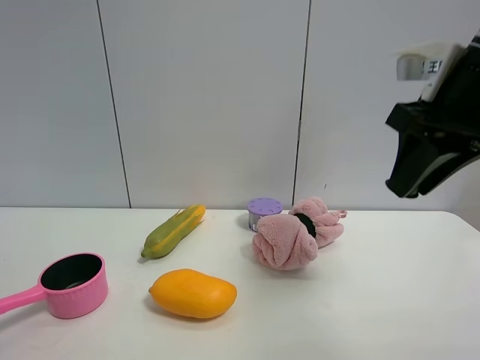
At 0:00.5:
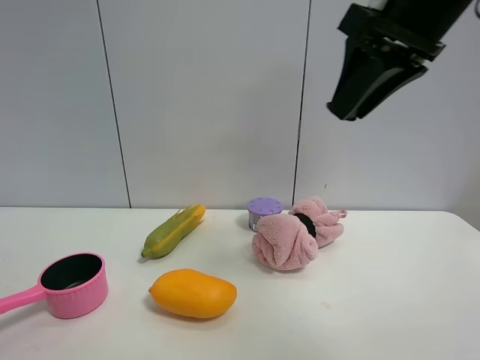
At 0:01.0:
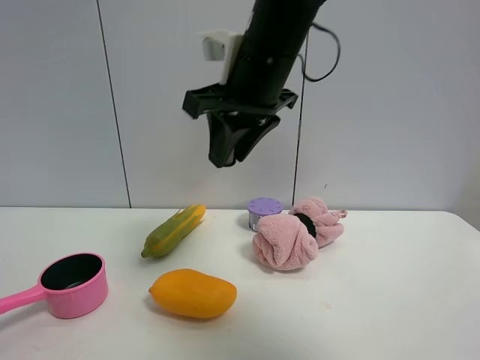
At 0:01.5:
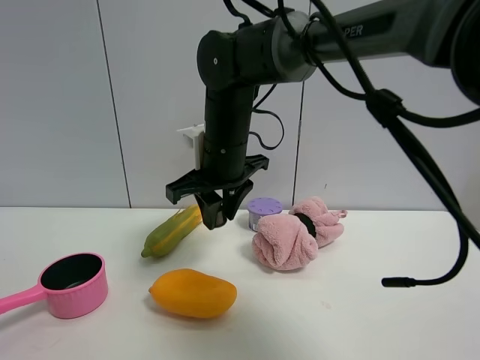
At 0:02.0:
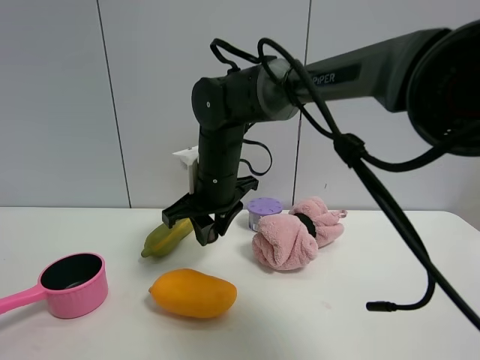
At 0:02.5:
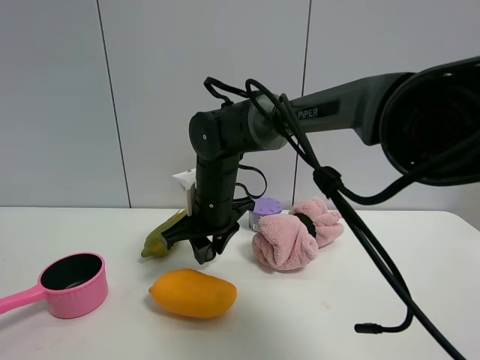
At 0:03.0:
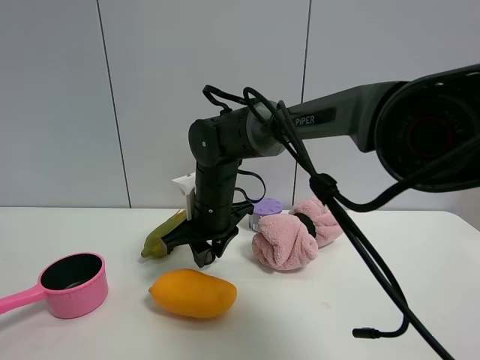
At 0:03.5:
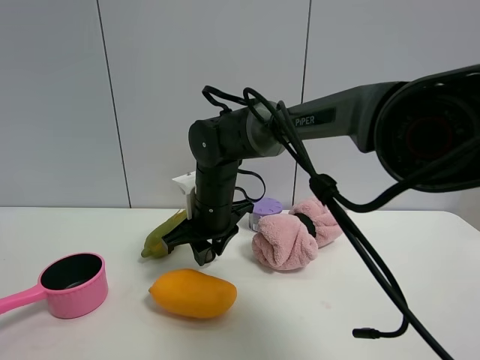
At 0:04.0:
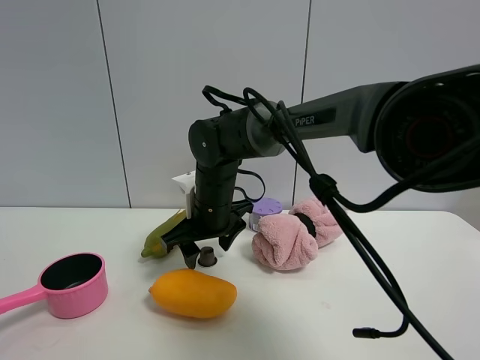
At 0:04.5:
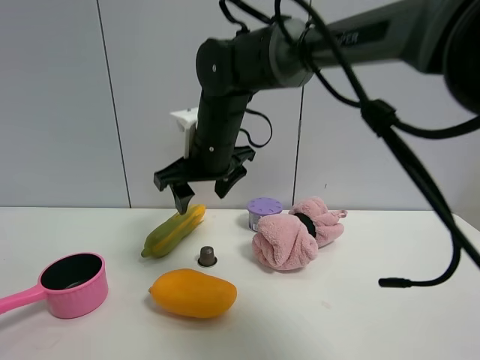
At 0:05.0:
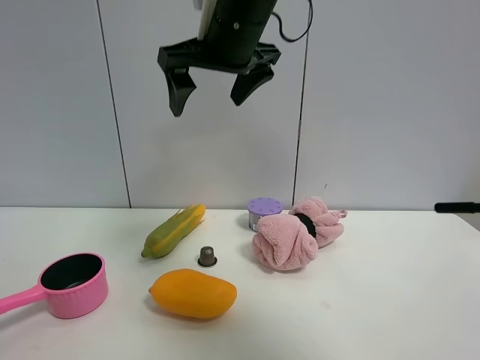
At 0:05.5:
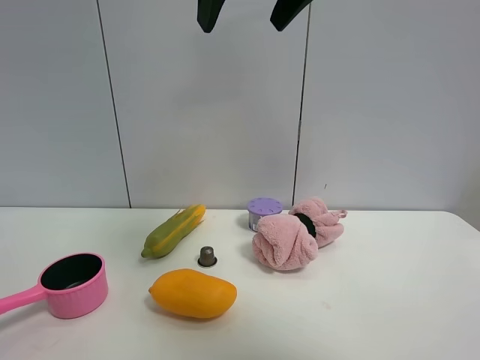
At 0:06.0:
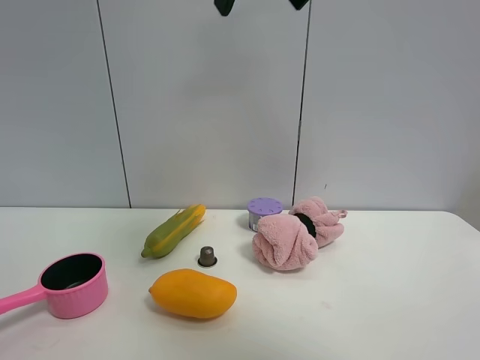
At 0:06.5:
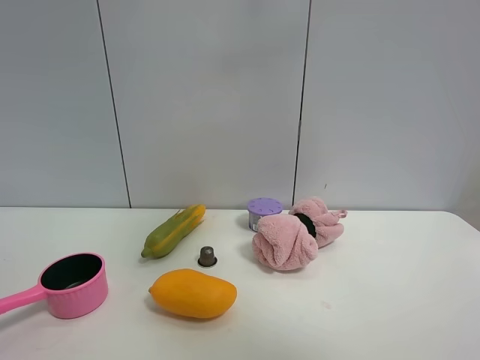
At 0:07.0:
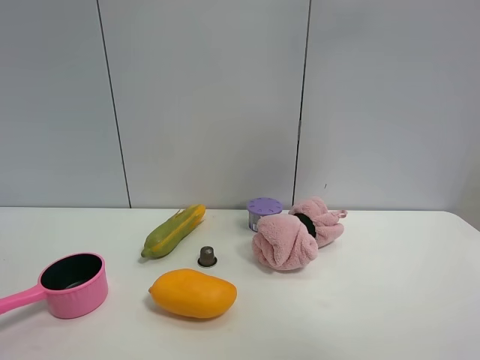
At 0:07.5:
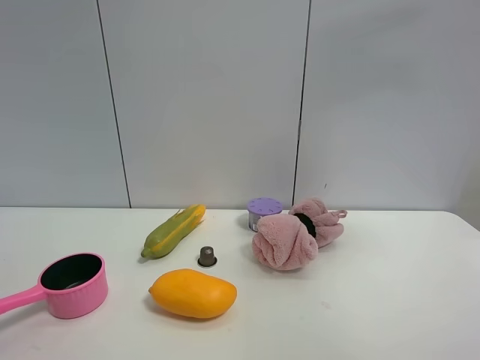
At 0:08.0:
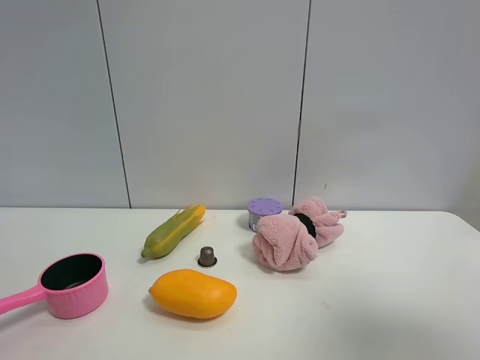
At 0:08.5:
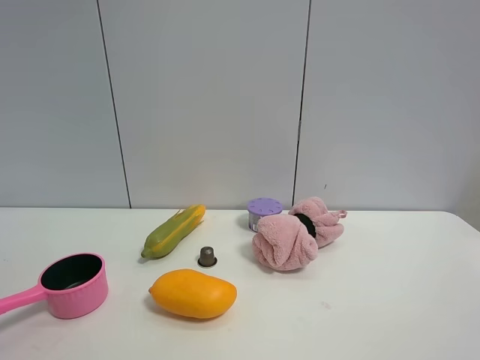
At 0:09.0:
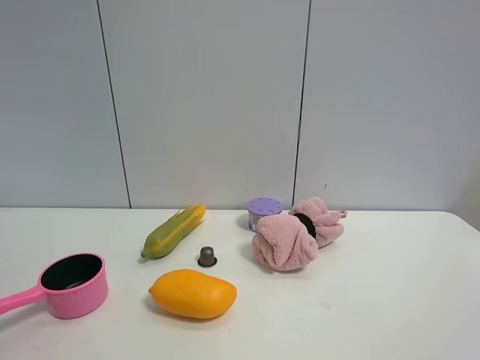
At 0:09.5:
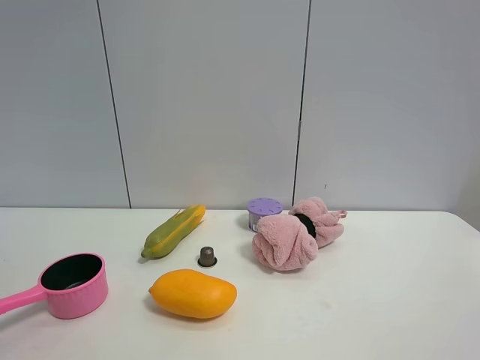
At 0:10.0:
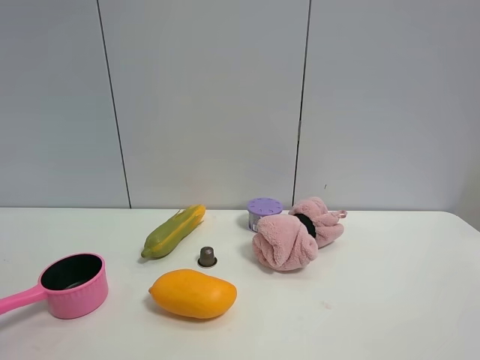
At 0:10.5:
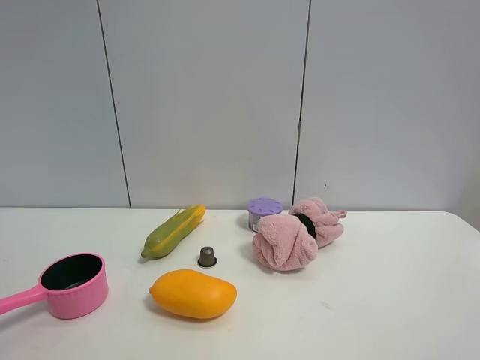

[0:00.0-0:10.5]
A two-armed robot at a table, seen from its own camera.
Task of the whole recording: the gripper move the object.
Step, 0:00.0 to 0:04.0: Place the coffee capsule on the table with the right gripper.
0:00.0 to 0:02.0: The right gripper goes about 30 cm to the left, downward and forward.
0:02.0 to 0:04.0: The right gripper opens up.
0:04.0 to 0:06.5: The right gripper travels upward and to the right by roughly 40 cm, and opens.
0:06.5 to 0:08.5: The right gripper is displaced backward, downward and to the right by roughly 40 cm.

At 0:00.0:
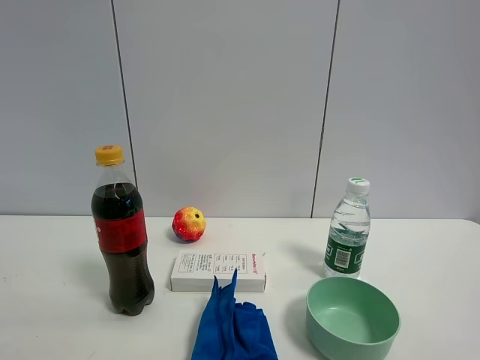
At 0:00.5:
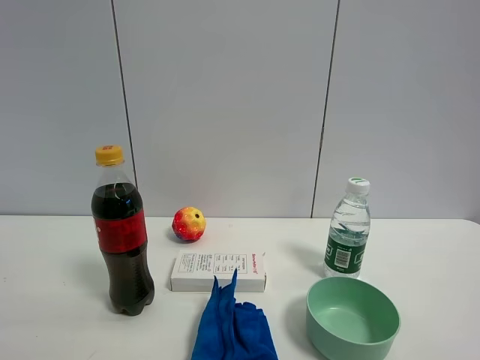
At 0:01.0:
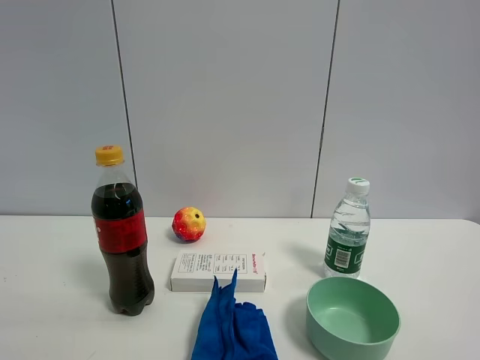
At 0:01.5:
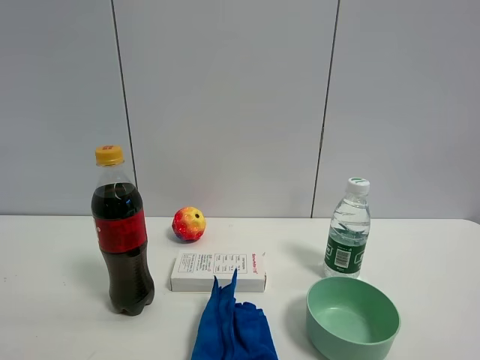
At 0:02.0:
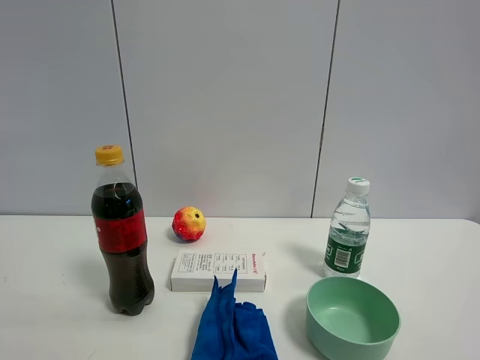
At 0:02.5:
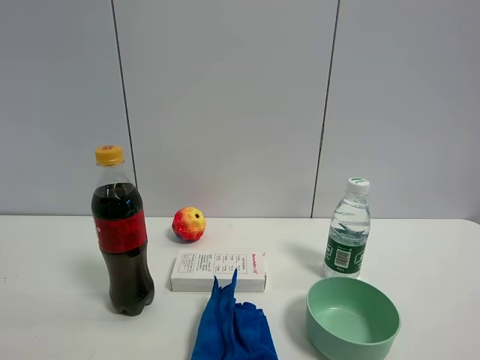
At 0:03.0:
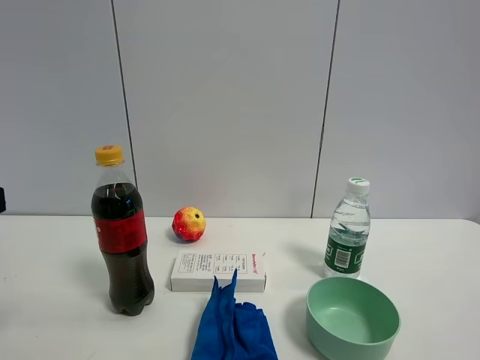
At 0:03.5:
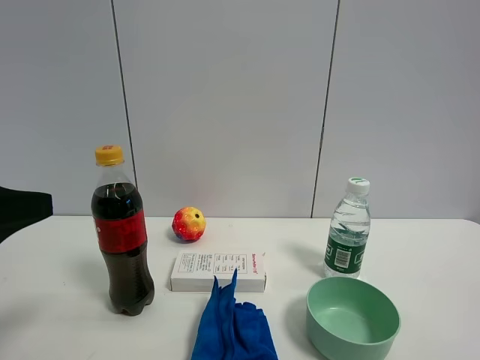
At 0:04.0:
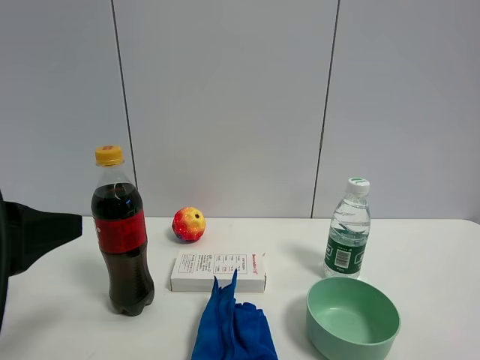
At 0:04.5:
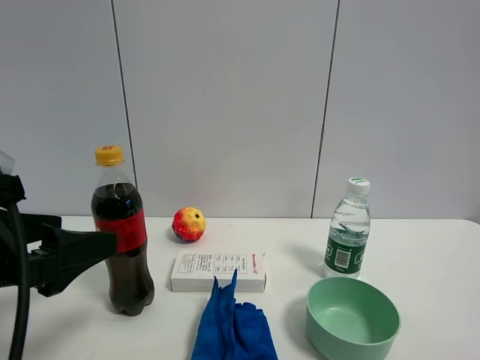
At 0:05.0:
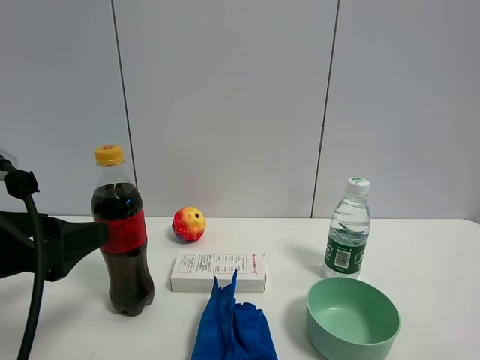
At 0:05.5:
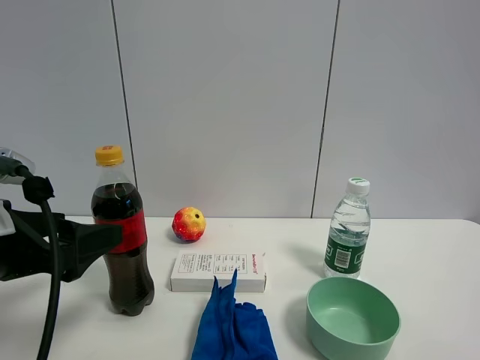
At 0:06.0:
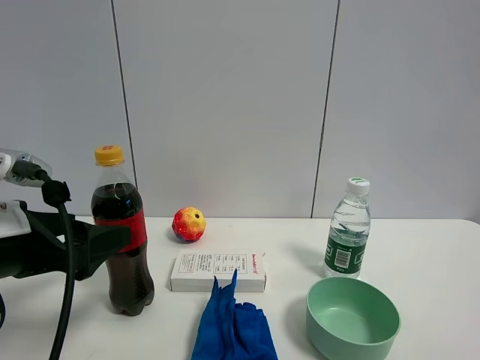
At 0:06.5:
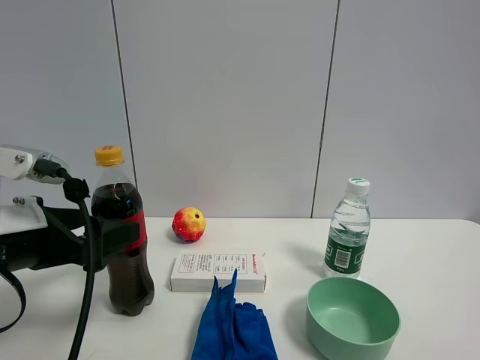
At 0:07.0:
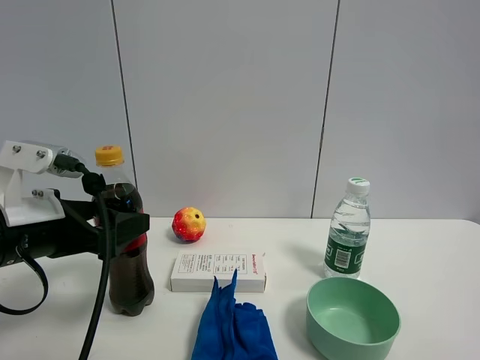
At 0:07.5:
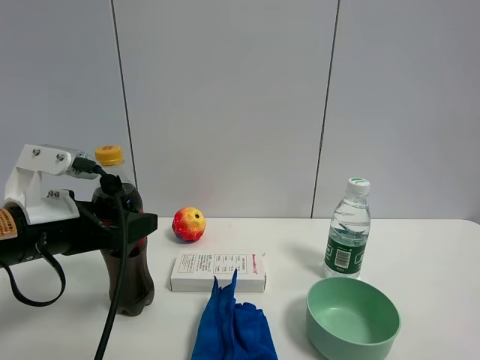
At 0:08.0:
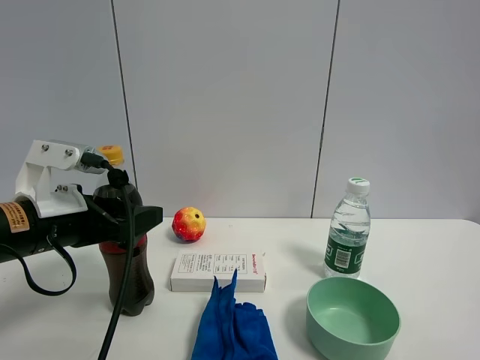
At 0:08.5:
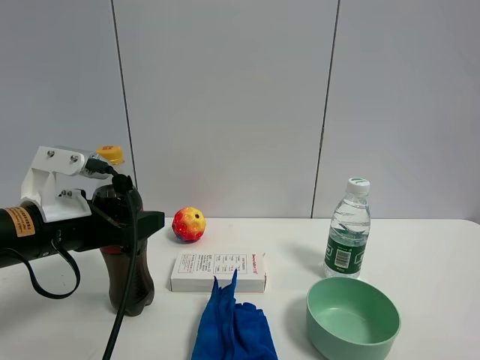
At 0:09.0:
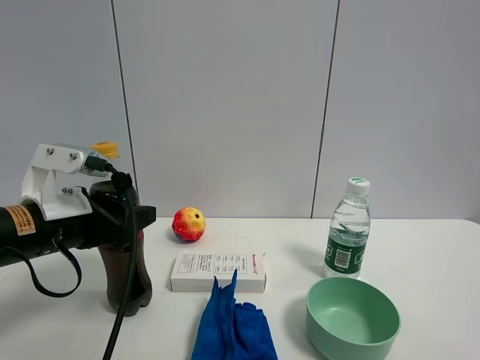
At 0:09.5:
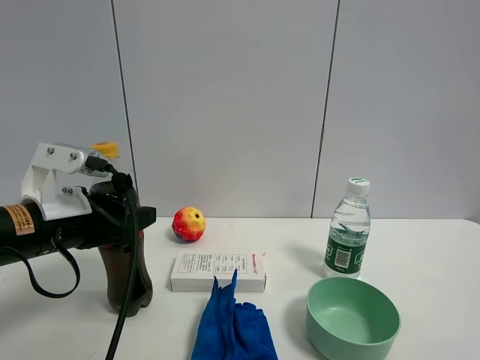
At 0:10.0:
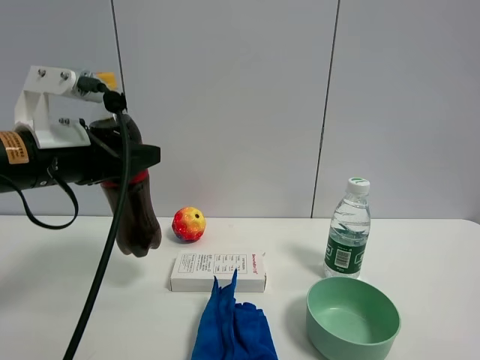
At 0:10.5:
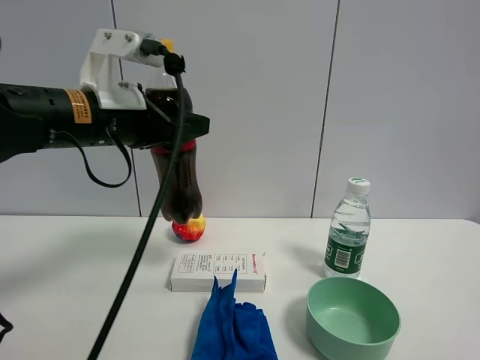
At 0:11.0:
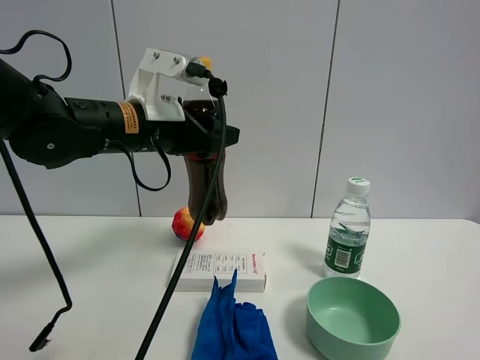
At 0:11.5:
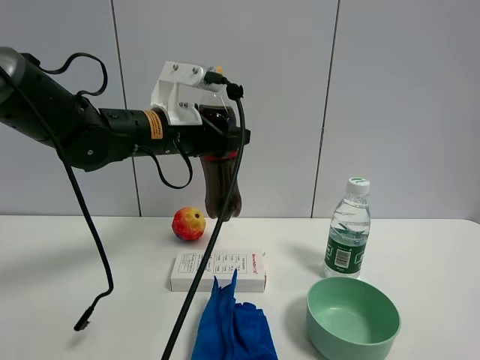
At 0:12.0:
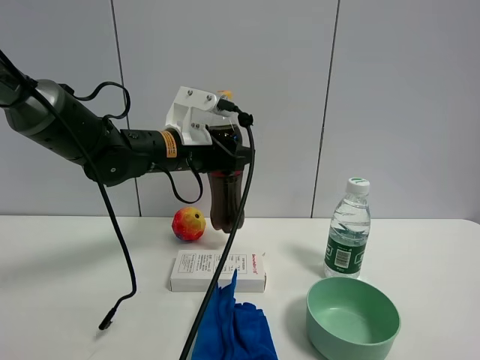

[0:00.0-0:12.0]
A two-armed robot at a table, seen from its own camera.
Task of the whole recording: the gripper move the object.
Step, 0:00.0 to 0:09.0: Grasp the coke with the left gripper.
0:02.0 to 0:04.0: The left gripper shifts roughly 15 cm downward, forward and to the right.
0:04.0 to 0:06.0: The left gripper moves some 5 cm.
0:06.0 to 0:08.0: The left gripper moves forward, about 5 cm.
0:08.0 to 0:10.0: The left gripper travels upward by about 5 cm, and closes up.
0:10.0 to 0:12.0: The left gripper goes some 15 cm forward and to the right.

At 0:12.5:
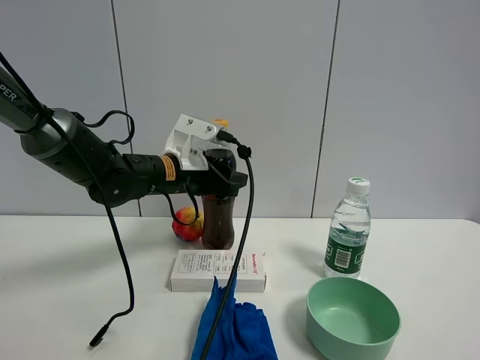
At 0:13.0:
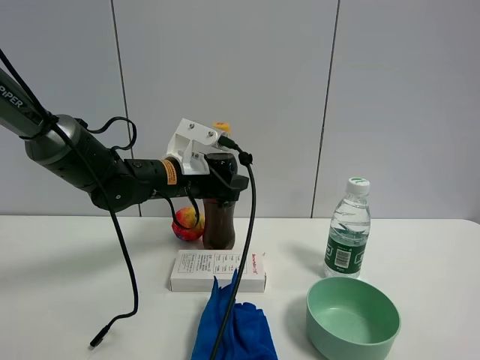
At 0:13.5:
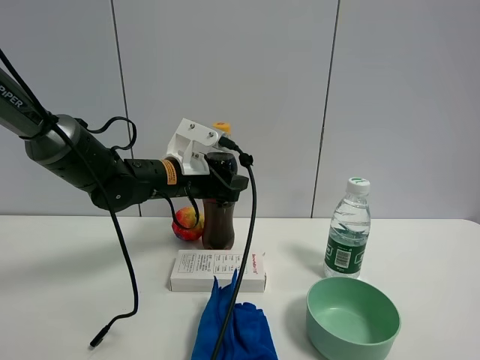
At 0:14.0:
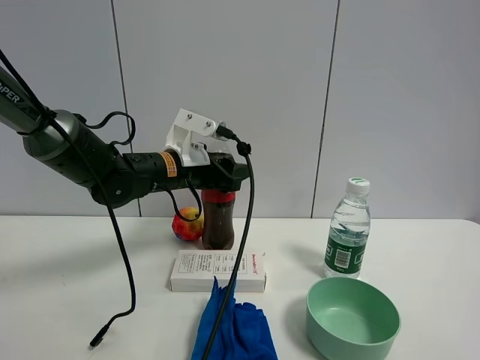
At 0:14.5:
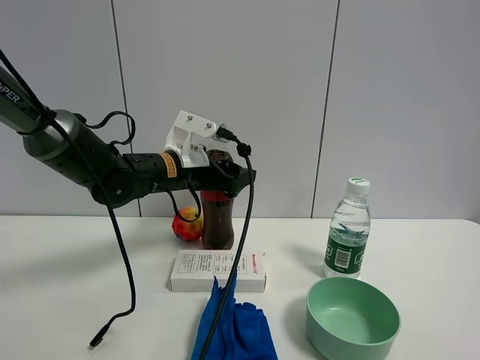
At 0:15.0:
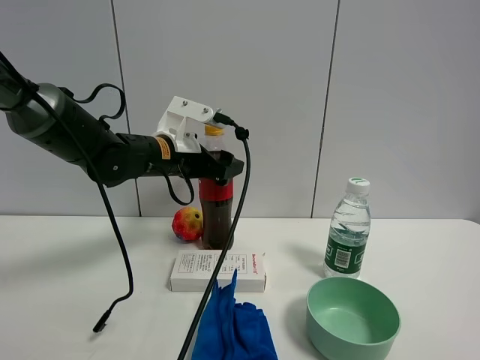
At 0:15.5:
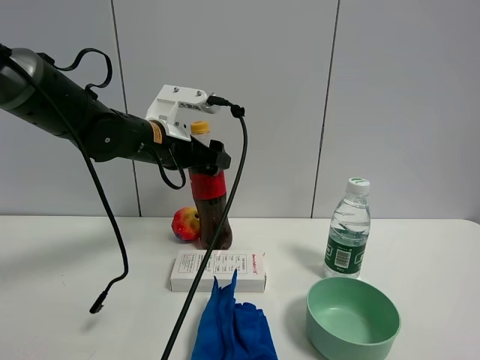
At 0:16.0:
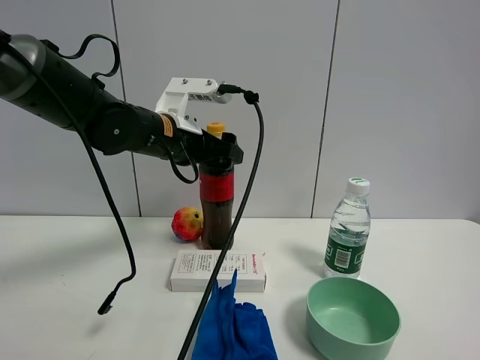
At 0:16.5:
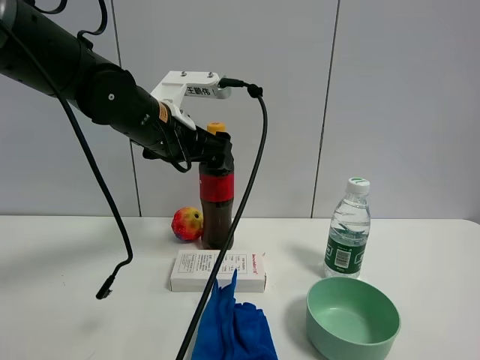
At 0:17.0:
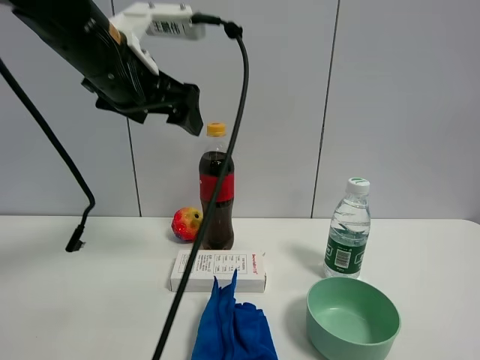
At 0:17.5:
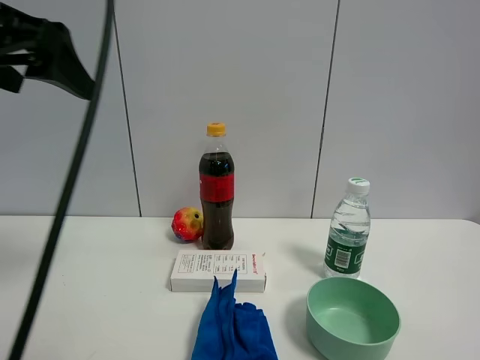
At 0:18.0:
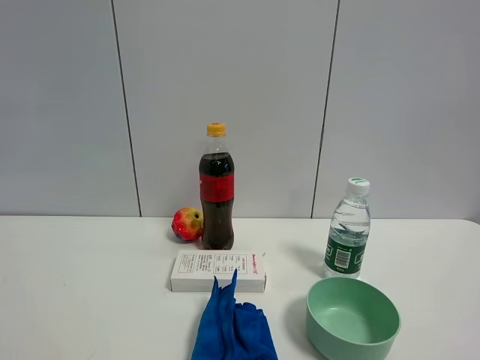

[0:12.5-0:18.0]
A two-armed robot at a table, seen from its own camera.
Task of the whole recording: the gripper move the object.
Step, 0:12.5 to 0:16.0: Place the coke on the table with the left gripper.
0:12.5 to 0:14.5: The left gripper opens up.
0:14.5 to 0:16.0: The left gripper is displaced upward by some 5 cm.
0:16.0 to 0:18.0: The left gripper shifts some 40 cm backward, to the left and upward.
